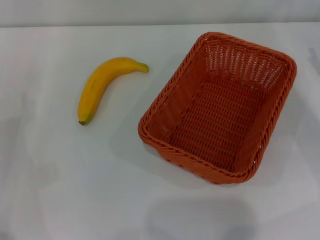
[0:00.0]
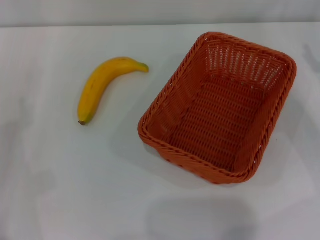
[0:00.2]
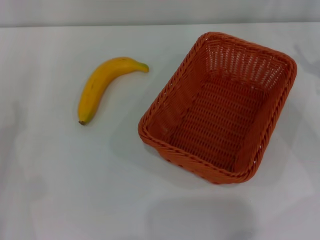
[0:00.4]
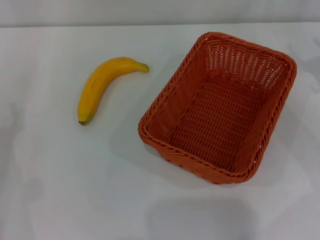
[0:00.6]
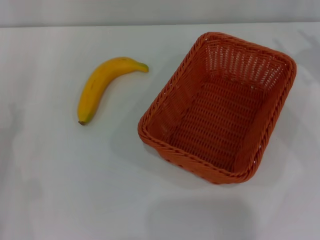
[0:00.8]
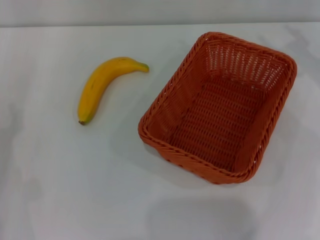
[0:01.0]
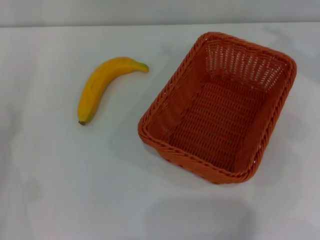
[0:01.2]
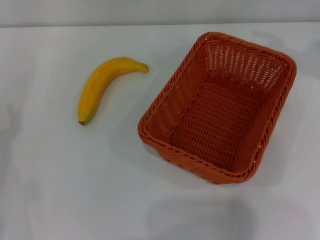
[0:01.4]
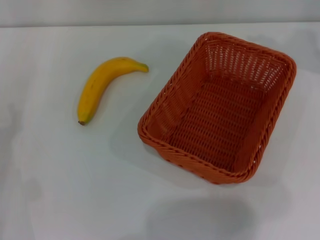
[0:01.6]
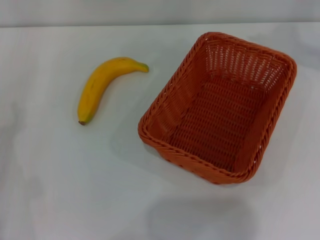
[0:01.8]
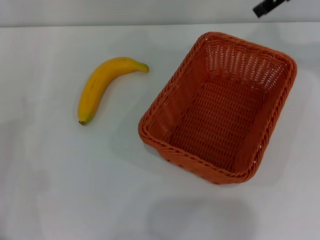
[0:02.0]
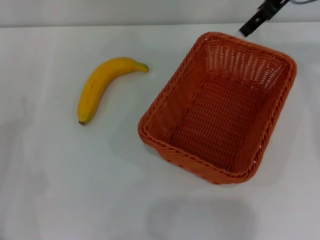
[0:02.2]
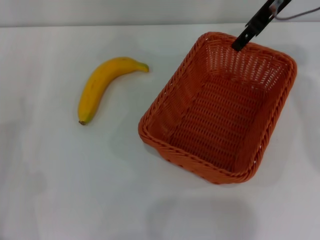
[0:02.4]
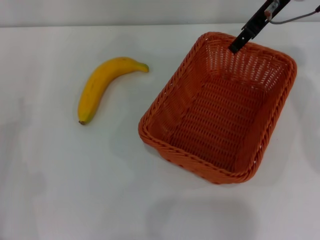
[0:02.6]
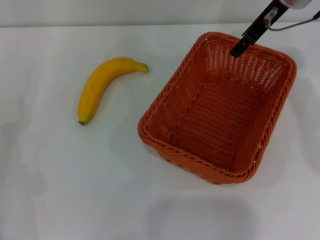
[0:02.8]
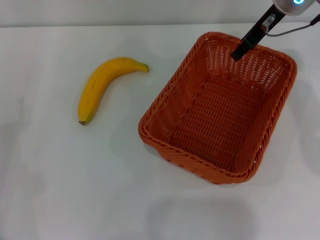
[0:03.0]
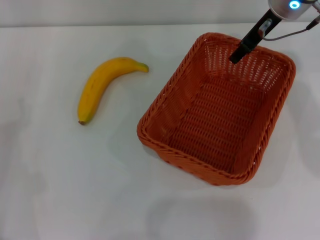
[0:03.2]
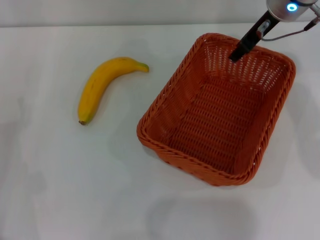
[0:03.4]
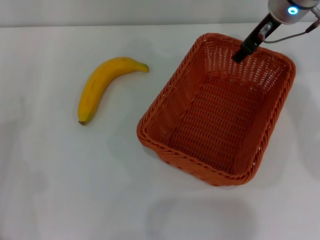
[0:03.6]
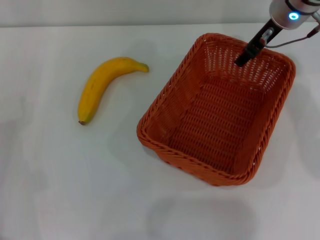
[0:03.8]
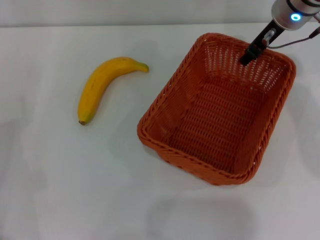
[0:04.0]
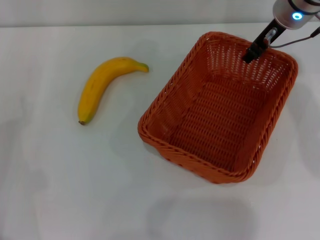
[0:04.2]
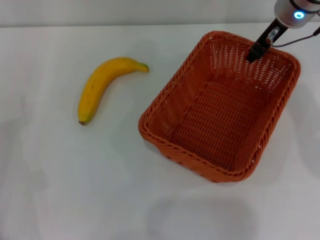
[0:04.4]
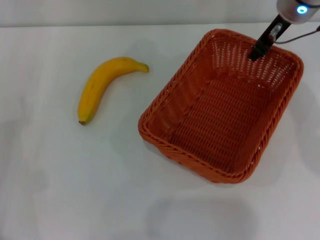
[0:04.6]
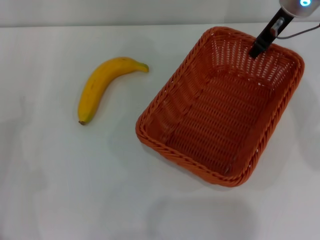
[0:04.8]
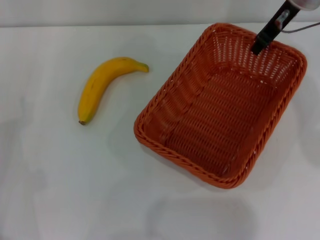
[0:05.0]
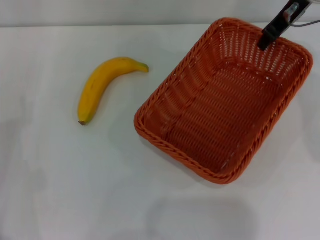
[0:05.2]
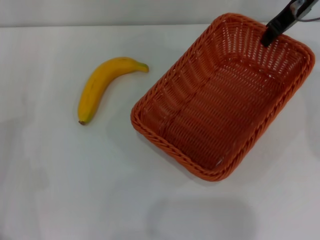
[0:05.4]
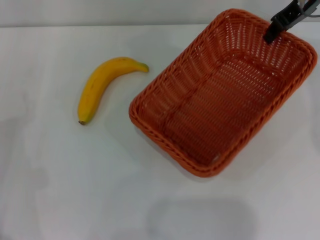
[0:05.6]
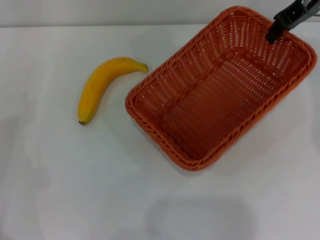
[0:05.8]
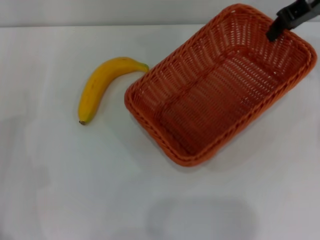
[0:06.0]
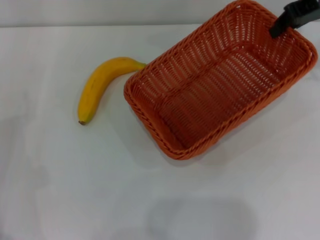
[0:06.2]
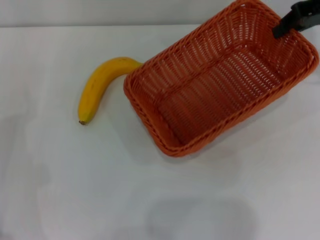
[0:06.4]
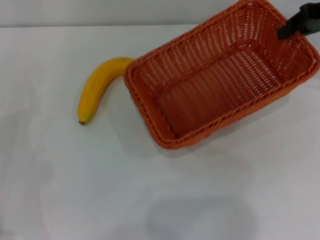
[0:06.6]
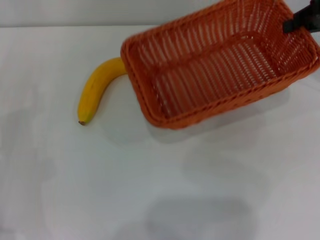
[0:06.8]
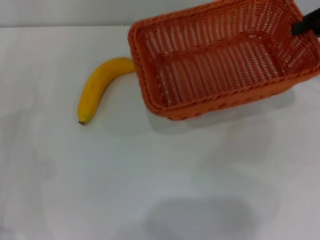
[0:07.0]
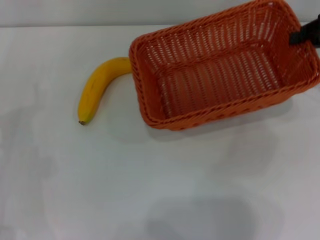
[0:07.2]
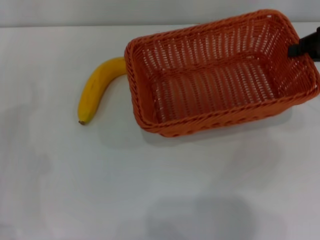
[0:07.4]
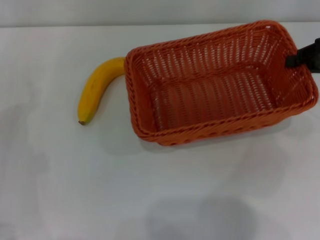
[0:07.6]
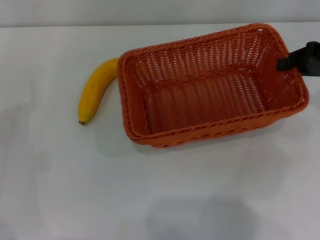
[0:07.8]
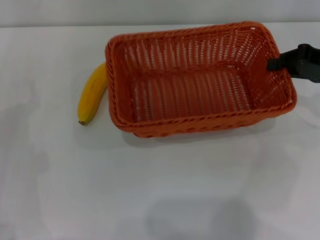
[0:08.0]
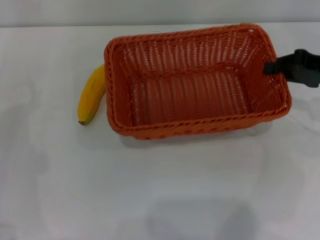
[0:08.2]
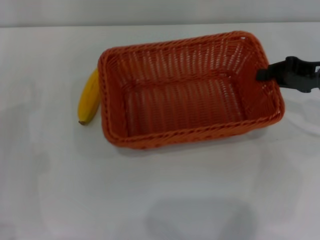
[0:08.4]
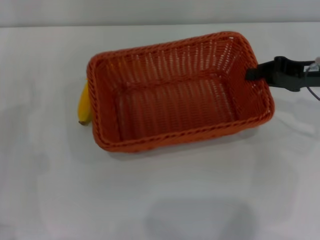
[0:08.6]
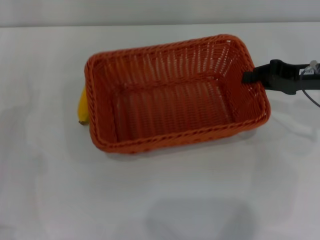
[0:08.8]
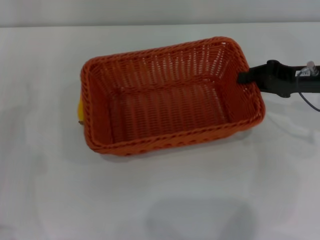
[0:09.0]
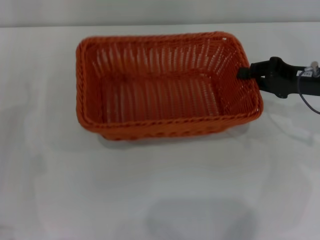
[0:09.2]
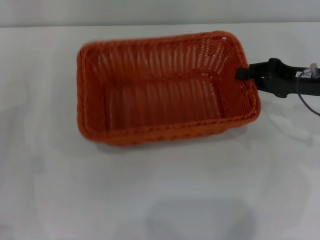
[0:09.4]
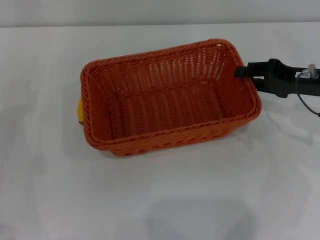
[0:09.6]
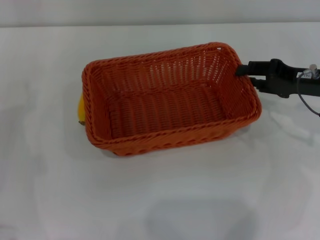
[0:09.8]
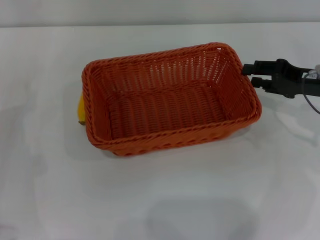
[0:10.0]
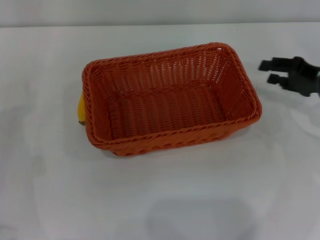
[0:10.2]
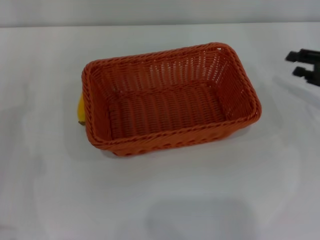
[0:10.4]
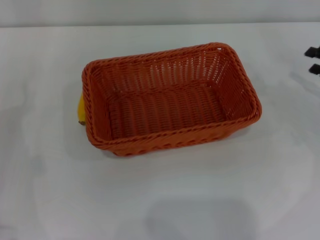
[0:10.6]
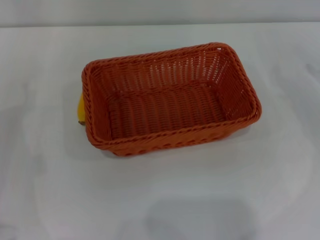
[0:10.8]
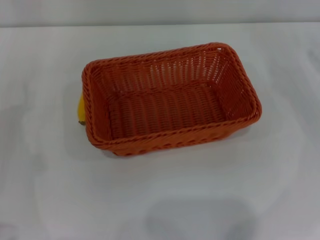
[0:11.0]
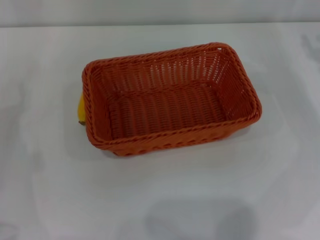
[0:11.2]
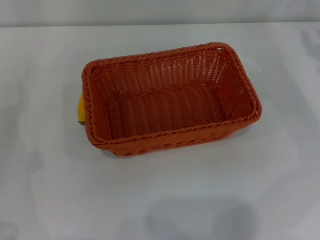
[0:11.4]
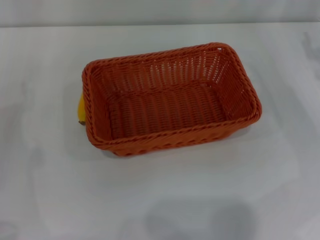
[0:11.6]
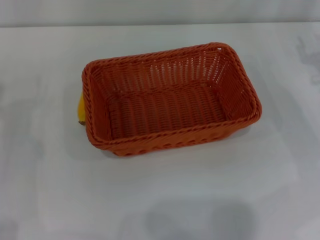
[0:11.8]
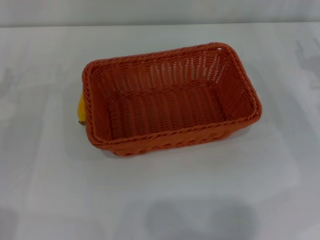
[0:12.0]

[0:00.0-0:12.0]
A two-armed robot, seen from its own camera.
Step, 0:00.0 to 0:04.4: Pick up the light basket with the right gripper.
Step, 0:04.8 to 0:09.8: Place the light basket in the center of view with the right gripper.
0:00.0 to 0:01.6: The right gripper heads upward and forward, covering approximately 25 cm.
0:01.6 to 0:03.0: The right gripper travels to the left and downward by some 15 cm.
0:03.0 to 0:04.4: The right gripper closes its fingers.
0:04.4 to 0:06.0: The right gripper heads to the right and upward, covering some 10 cm.
0:06.0 to 0:07.6: The right gripper heads backward, to the right and downward, covering approximately 15 cm.
0:07.6 to 0:09.0: The right gripper moves downward and to the left, approximately 10 cm.
0:09.0 to 0:10.4: The right gripper is displaced to the right by some 5 cm, and opens its fingers.

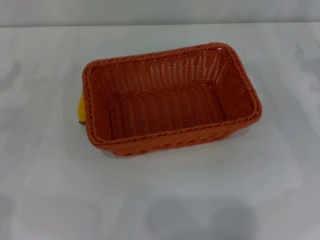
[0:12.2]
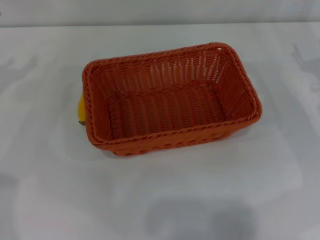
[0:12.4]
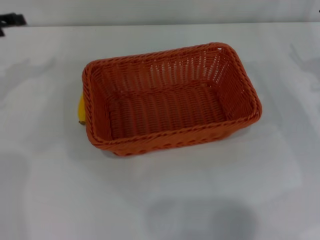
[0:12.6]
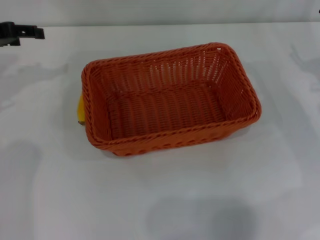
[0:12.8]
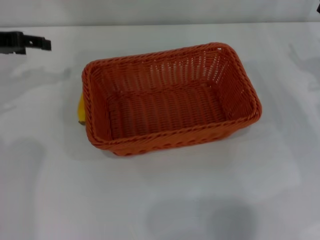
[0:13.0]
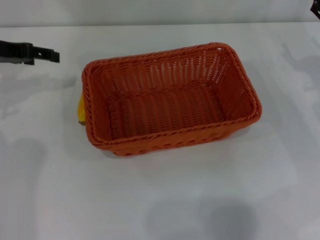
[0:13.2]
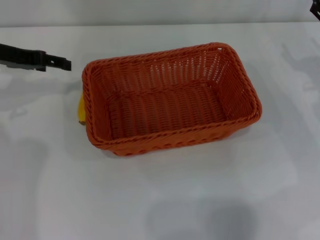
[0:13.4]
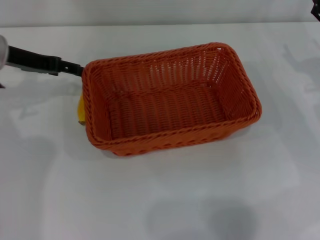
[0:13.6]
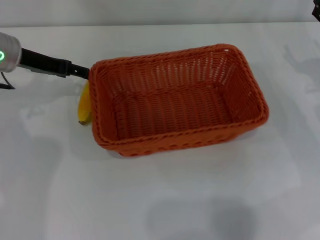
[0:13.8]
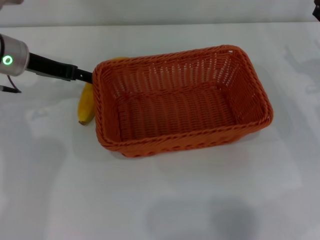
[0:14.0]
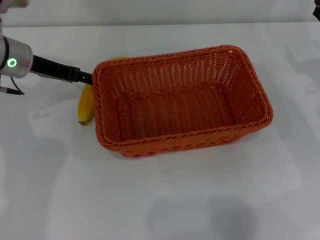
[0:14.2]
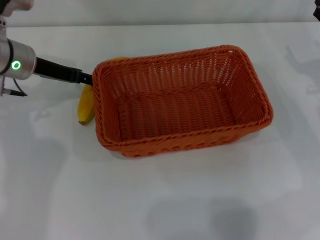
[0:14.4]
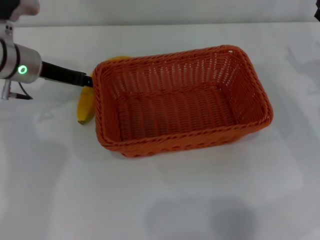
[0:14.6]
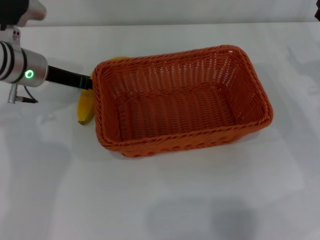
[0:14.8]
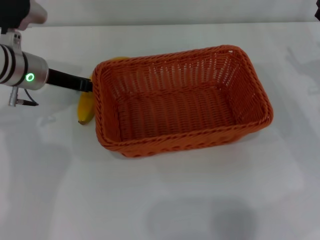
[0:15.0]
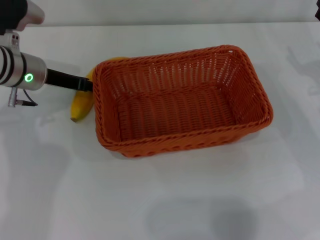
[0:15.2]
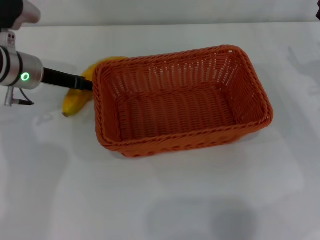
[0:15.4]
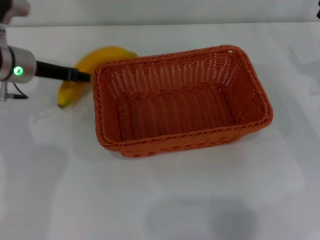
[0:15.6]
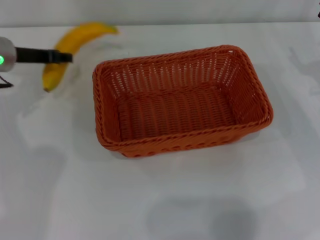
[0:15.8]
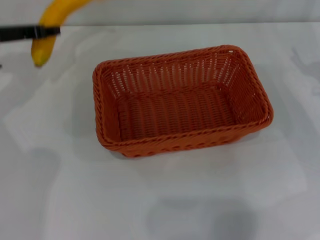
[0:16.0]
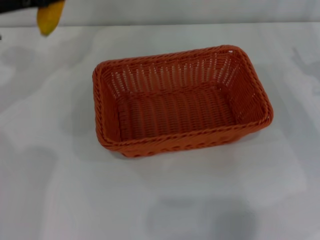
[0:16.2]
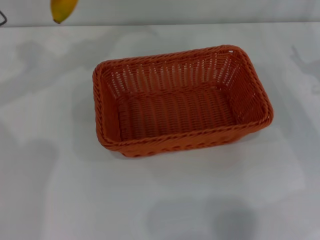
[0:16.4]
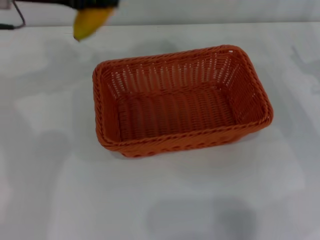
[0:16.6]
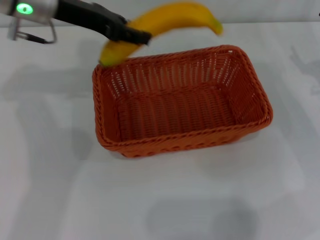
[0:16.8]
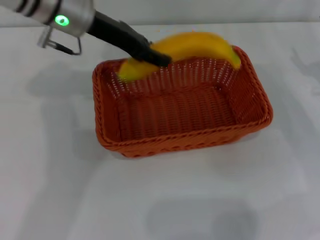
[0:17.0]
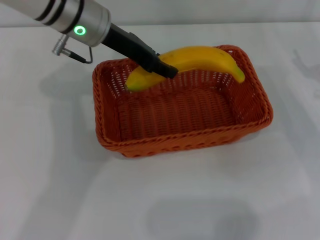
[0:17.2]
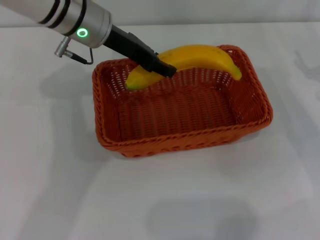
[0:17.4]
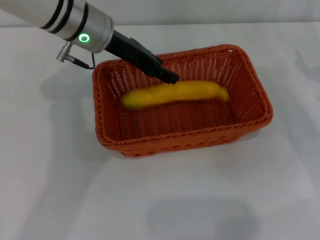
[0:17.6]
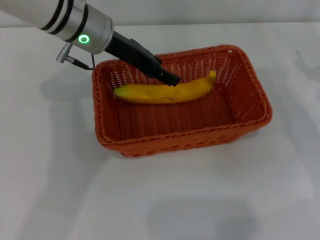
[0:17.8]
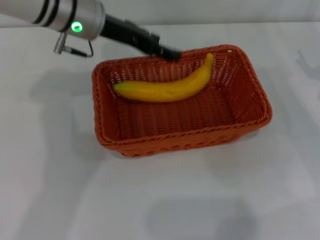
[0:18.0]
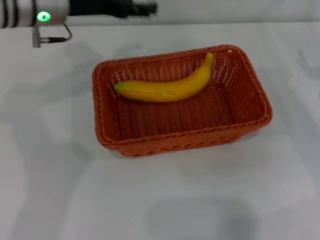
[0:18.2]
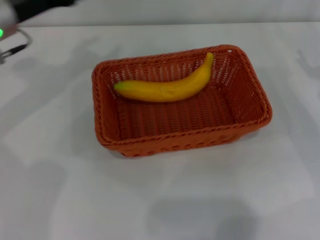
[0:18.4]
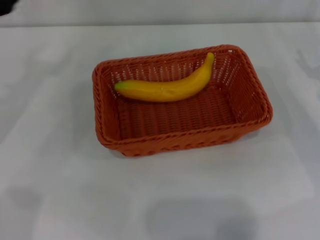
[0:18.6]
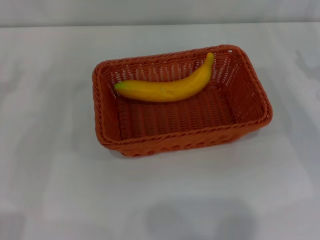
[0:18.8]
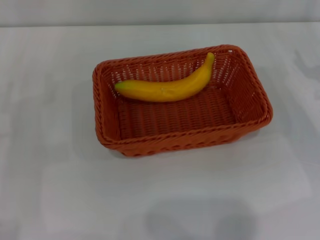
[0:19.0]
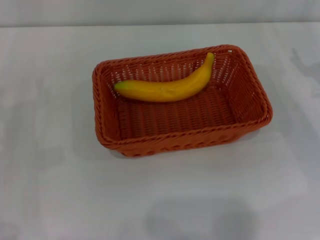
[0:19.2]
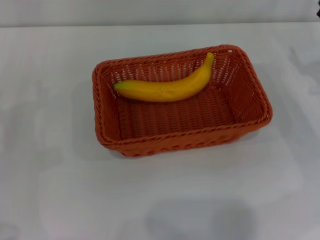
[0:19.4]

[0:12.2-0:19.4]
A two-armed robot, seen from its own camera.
Step, 0:12.2 to 0:15.6: Pick up the banana with the left gripper.
Step, 0:15.8 to 0:17.6: Place the banana into the light basket with the left gripper.
0:12.2 to 0:13.6: The left gripper is displaced to the right, forward and upward by roughly 15 cm.
0:13.6 to 0:15.0: The left gripper changes place by roughly 5 cm.
0:15.0 to 0:16.6: The left gripper travels upward by approximately 10 cm, and closes.
0:16.6 to 0:18.0: The left gripper goes roughly 10 cm to the right, and opens up.
0:18.0 to 0:19.4: The left gripper shifts approximately 30 cm to the left, backward and downward.
